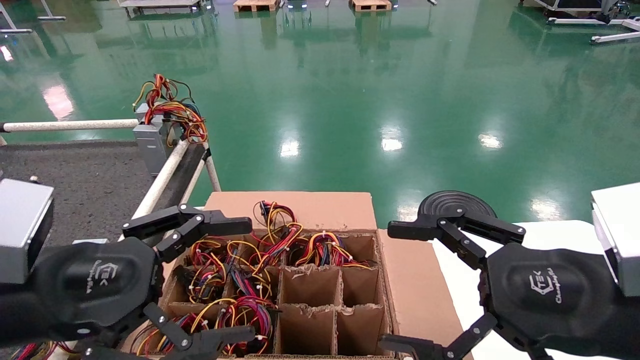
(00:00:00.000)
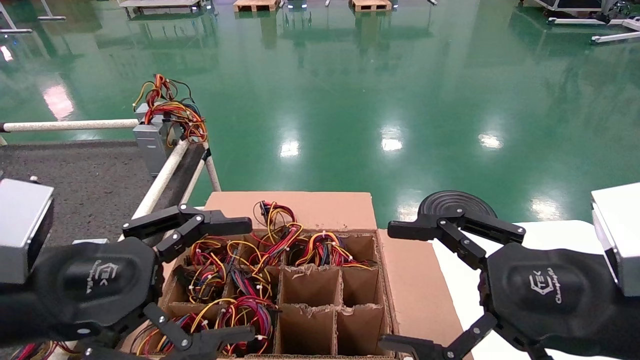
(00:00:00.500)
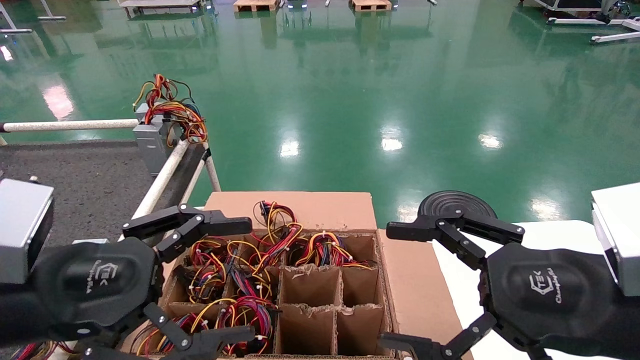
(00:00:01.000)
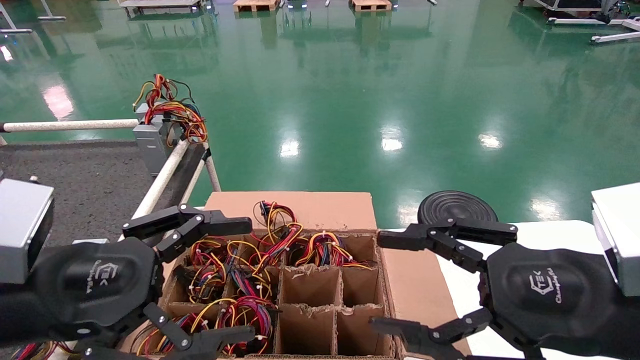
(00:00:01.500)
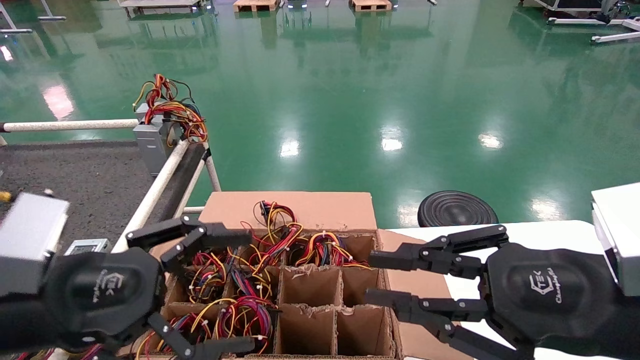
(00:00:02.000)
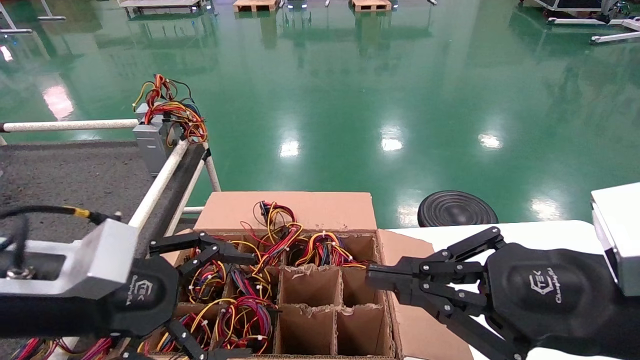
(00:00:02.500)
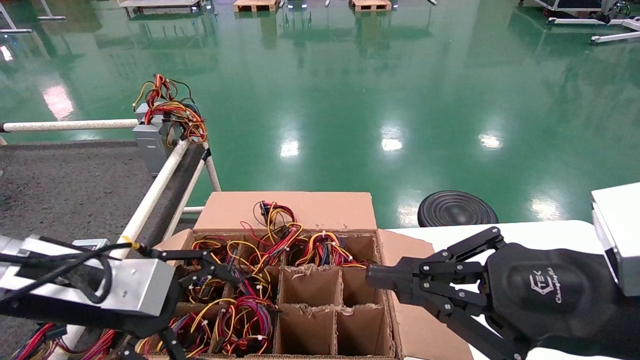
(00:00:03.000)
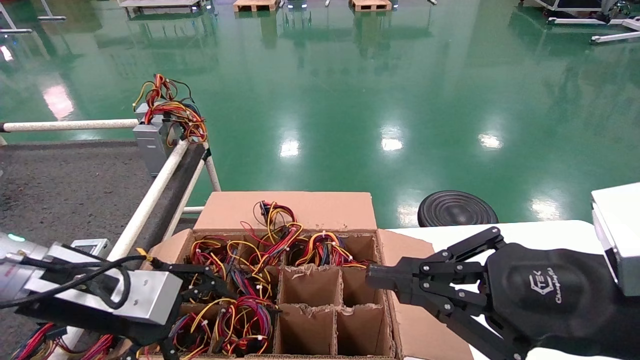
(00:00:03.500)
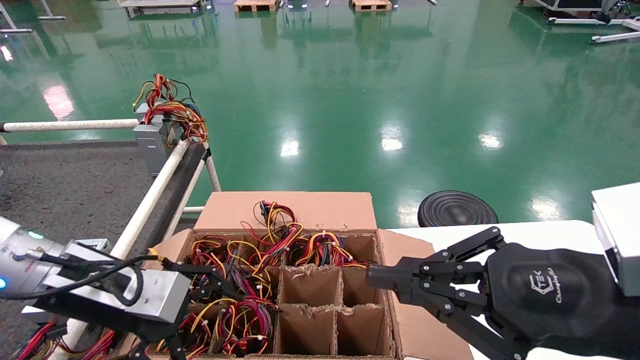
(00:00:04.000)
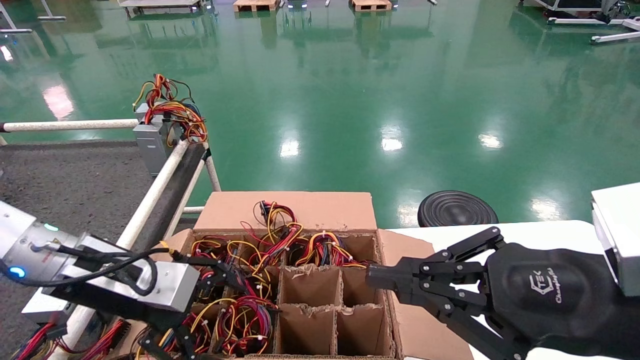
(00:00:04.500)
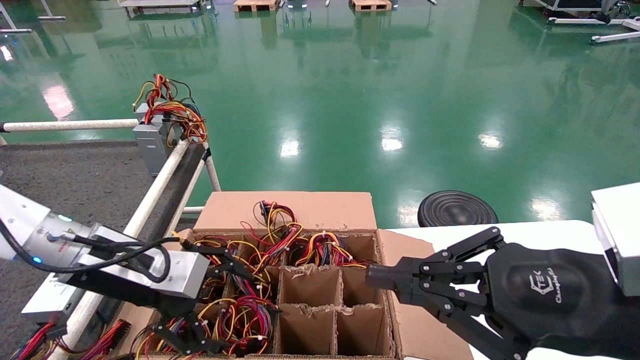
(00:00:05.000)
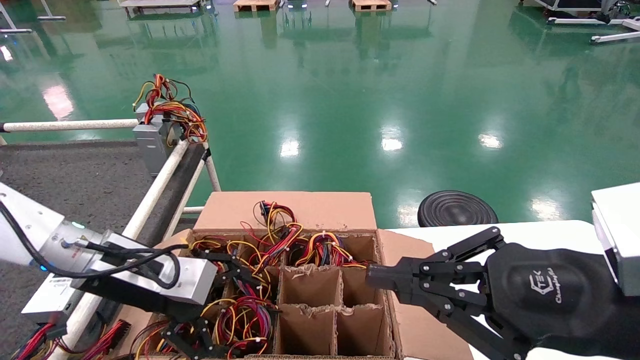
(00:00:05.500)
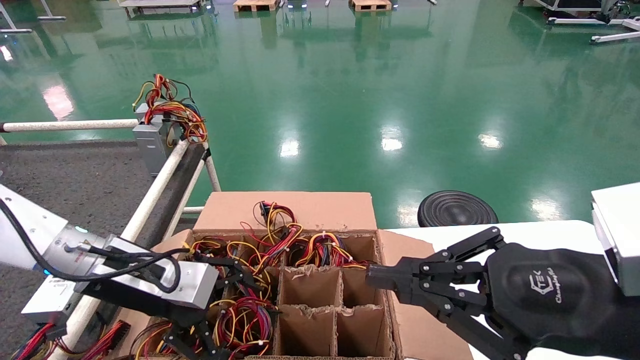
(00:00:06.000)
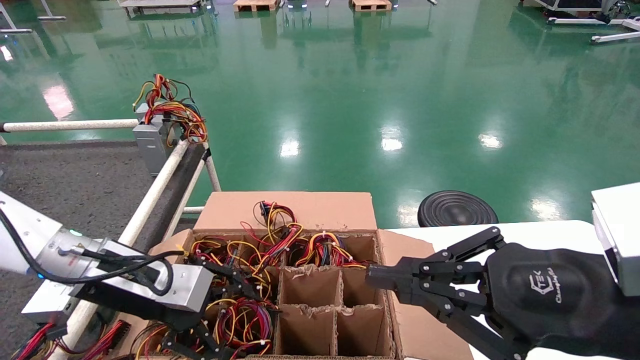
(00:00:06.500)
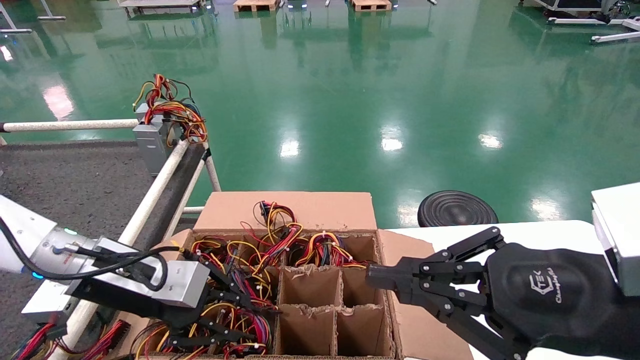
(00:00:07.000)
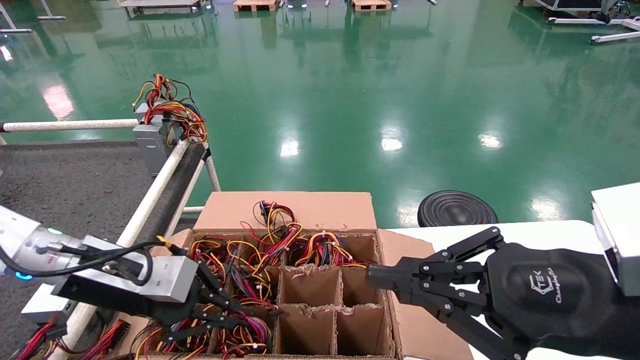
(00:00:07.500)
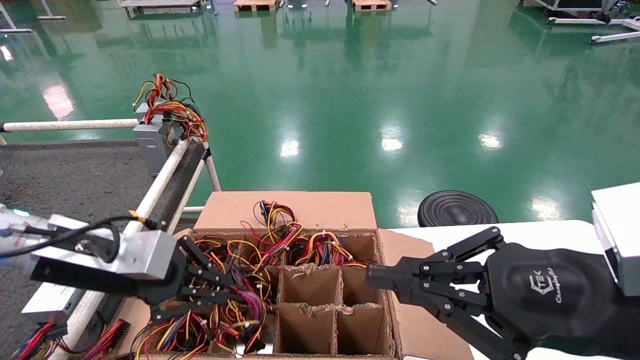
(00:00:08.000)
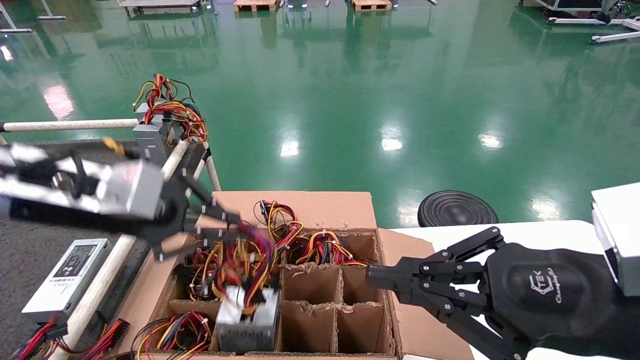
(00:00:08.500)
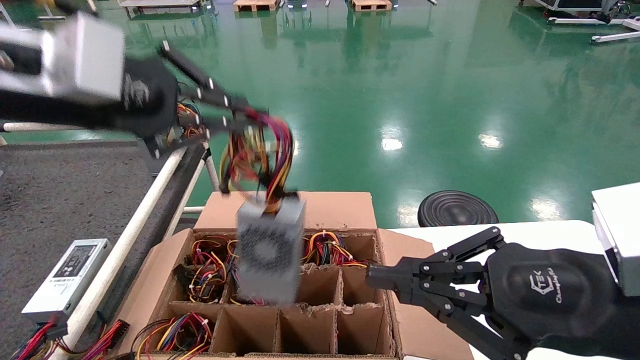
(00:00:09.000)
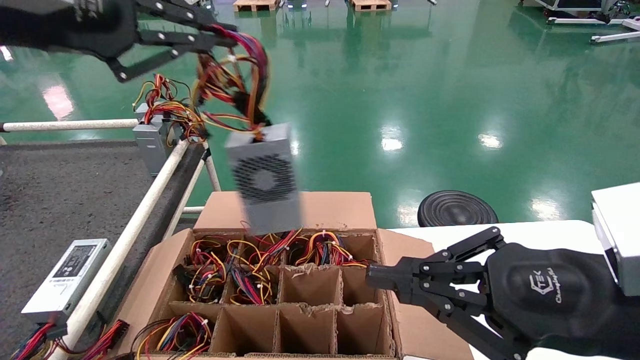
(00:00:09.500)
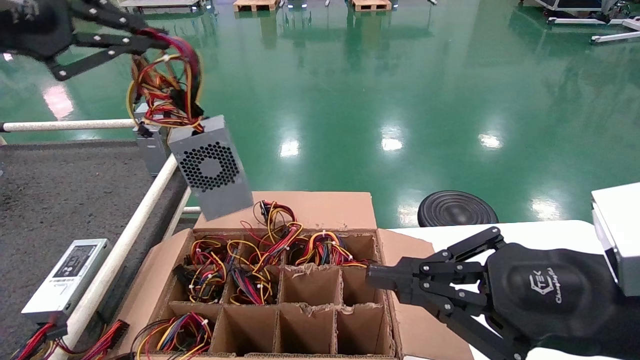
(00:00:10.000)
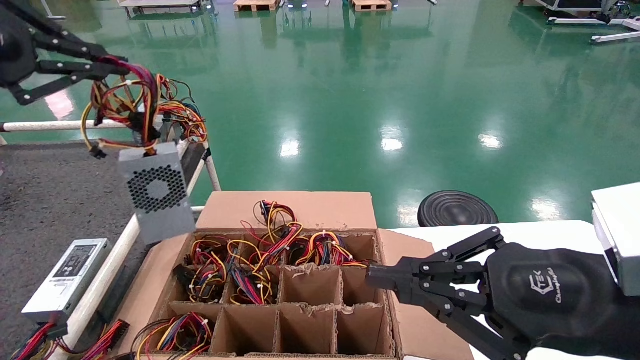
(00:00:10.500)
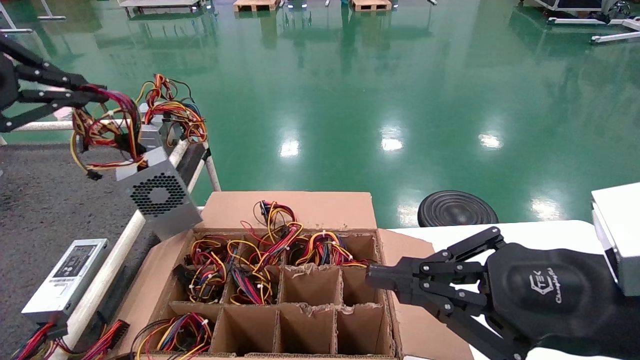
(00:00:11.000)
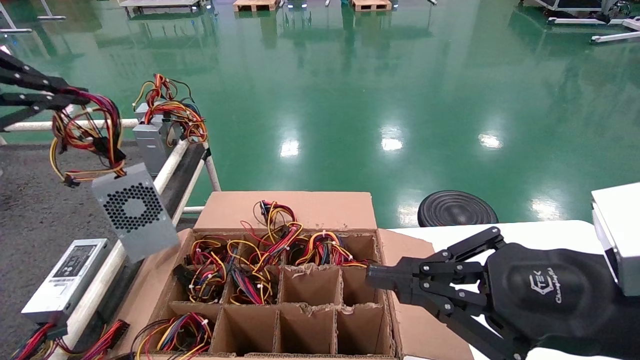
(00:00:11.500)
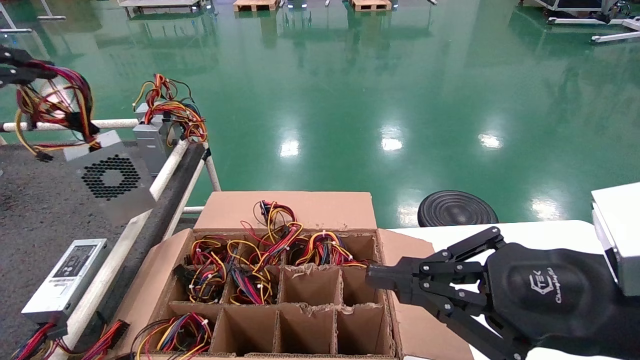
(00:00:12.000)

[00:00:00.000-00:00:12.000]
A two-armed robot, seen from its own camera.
Step, 00:00:02.500 to 00:00:07.500: Grab and lift the power supply from the large box.
00:00:00.000 to 00:00:02.000: The right gripper closes its fingers.
00:00:02.000 to 00:00:04.000: The left gripper goes approximately 10 cm forward; the right gripper closes up.
00:00:04.000 to 00:00:06.000: The grippers stay close to where they were, moving slightly.
00:00:06.000 to 00:00:08.000: The left gripper shifts by some 5 cm, and closes up.
00:00:08.000 to 00:00:10.000: The left gripper shifts approximately 25 cm upward.
00:00:10.000 to 00:00:12.000: The left gripper travels to the left by roughly 10 cm.

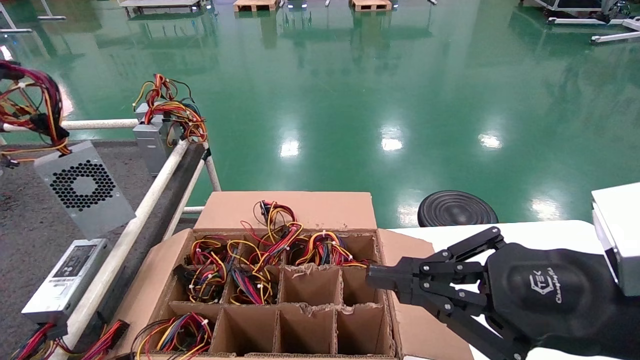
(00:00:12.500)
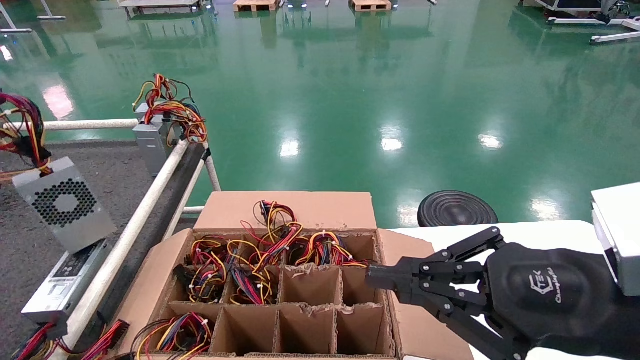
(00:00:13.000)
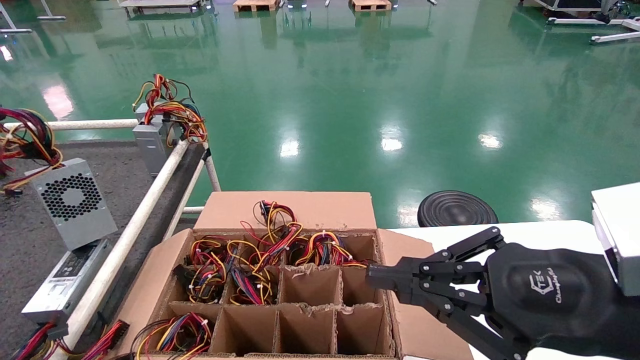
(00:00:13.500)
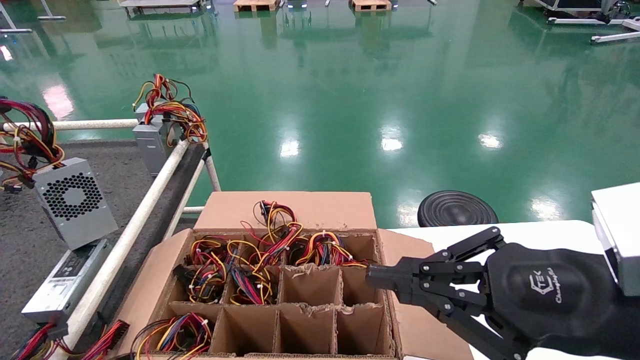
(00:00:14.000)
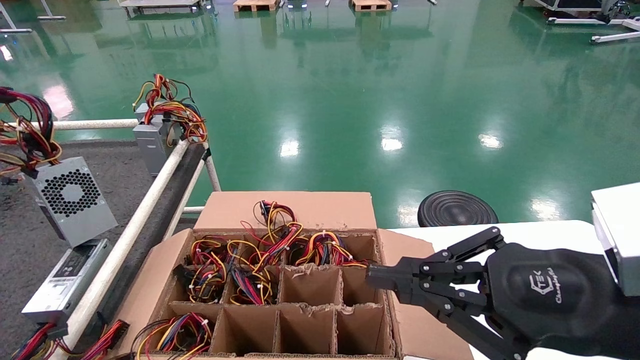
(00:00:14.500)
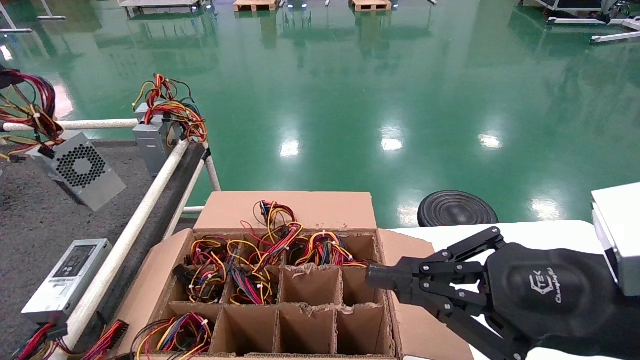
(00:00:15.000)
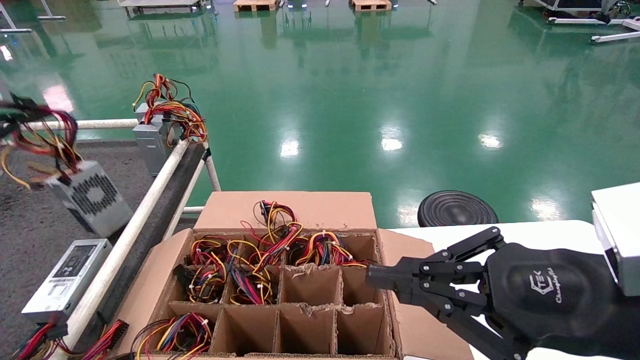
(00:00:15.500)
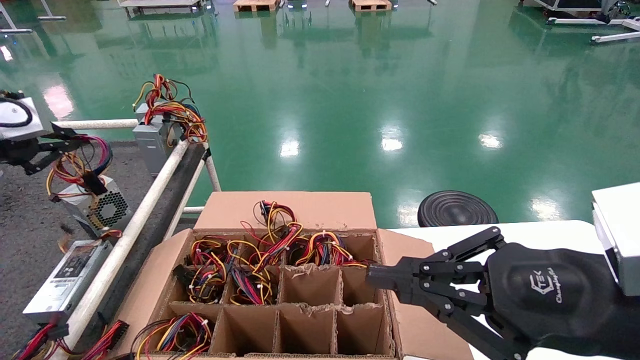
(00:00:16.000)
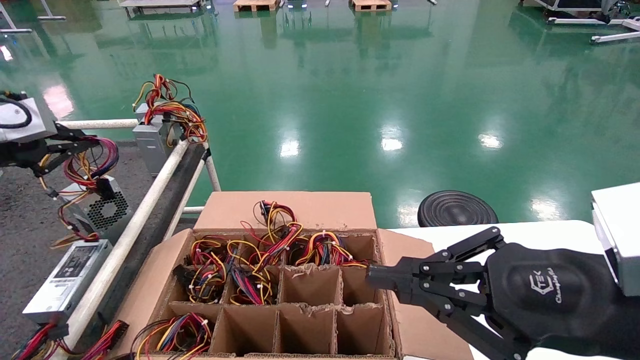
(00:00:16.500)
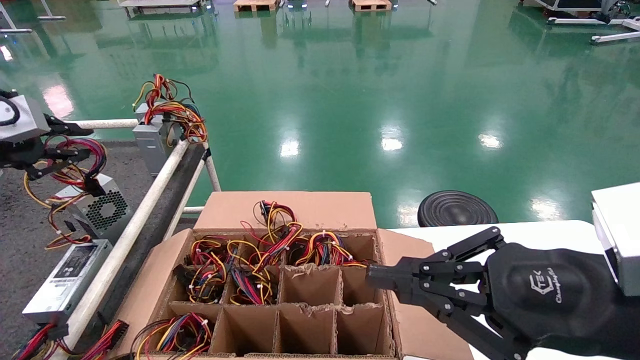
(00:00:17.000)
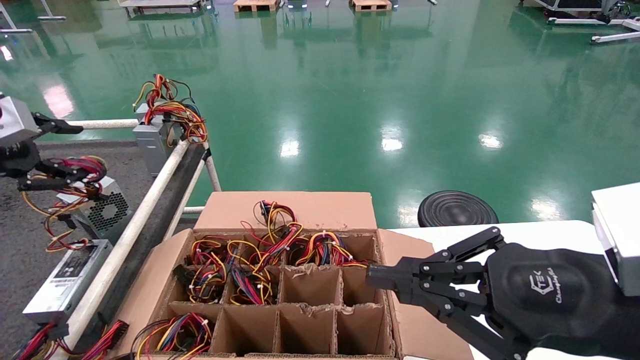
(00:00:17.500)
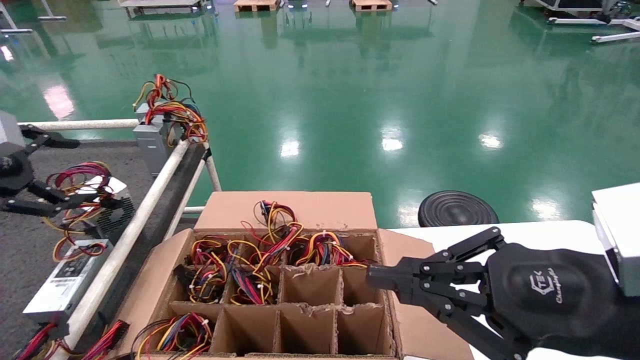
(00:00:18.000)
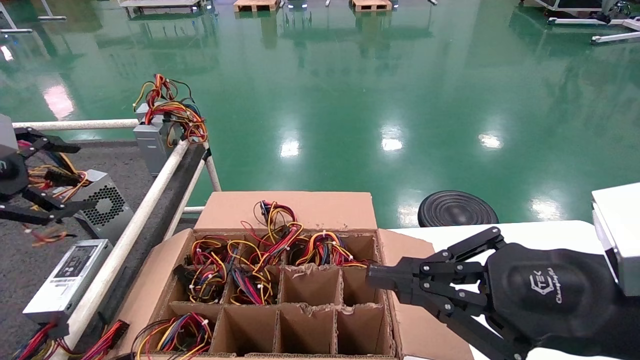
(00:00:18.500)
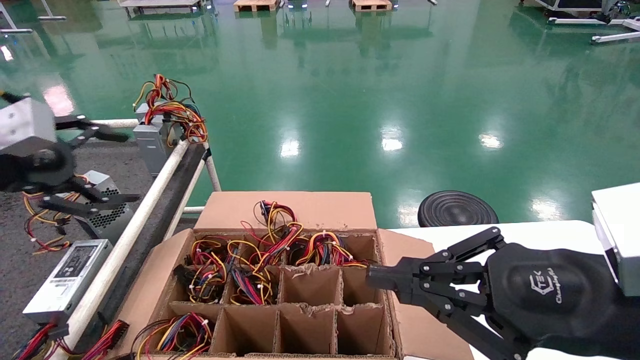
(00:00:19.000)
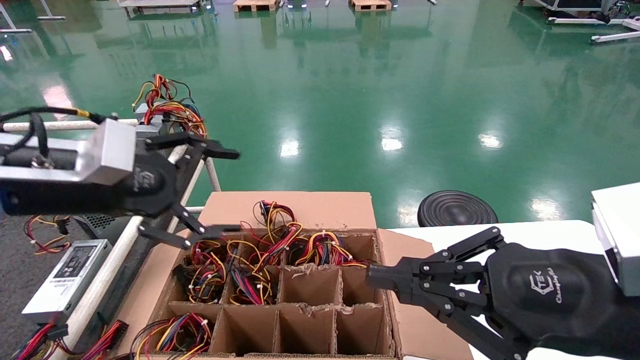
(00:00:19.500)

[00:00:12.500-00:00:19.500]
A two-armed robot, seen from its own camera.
Step, 00:00:12.500 to 00:00:19.500: Place the power supply on the operating table.
00:00:12.500 to 00:00:14.500: The grippers move only a little.
00:00:14.500 to 00:00:16.000: The left gripper shifts some 10 cm forward and downward.
00:00:16.000 to 00:00:17.500: The left gripper opens its fingers.
00:00:17.500 to 00:00:19.500: The left gripper is displaced to the right by approximately 20 cm, and opens.
